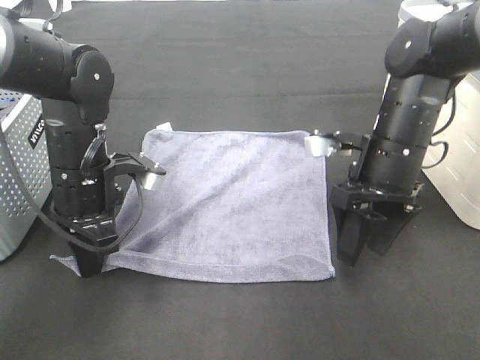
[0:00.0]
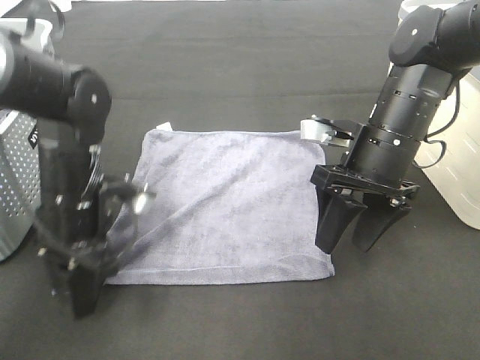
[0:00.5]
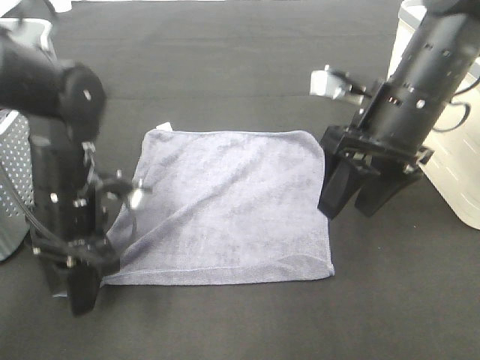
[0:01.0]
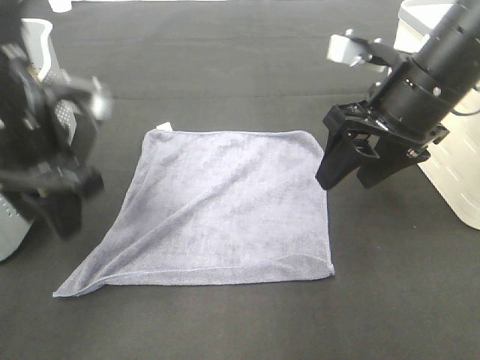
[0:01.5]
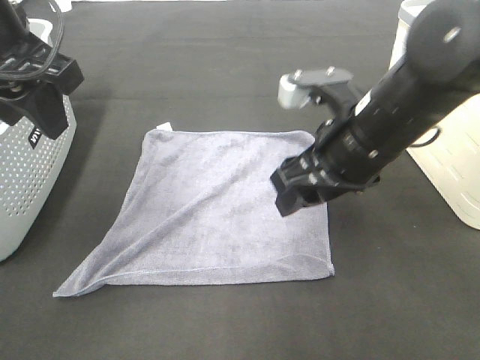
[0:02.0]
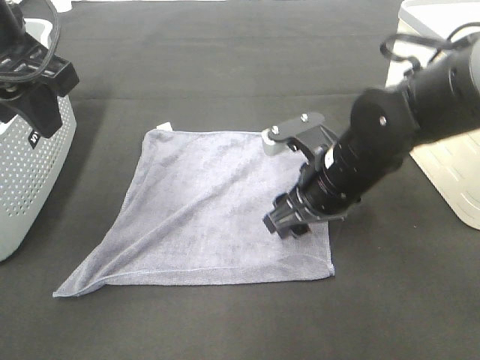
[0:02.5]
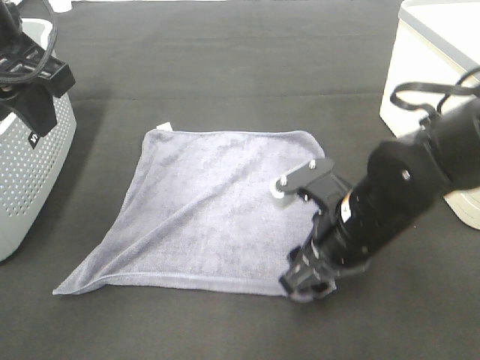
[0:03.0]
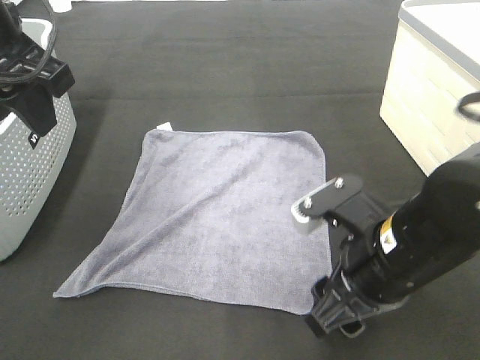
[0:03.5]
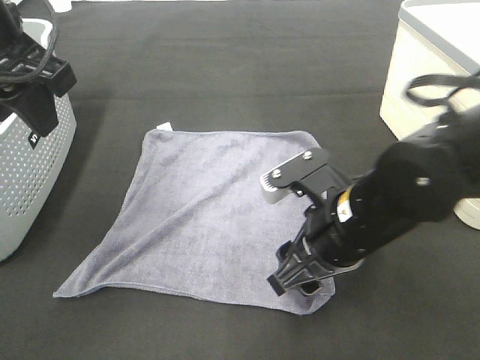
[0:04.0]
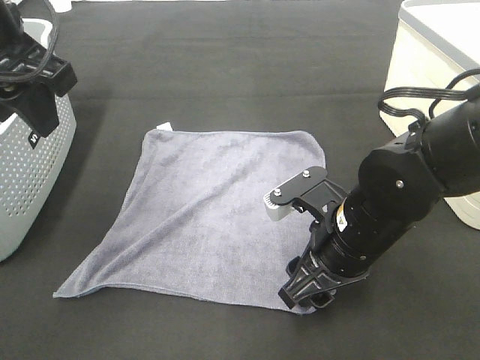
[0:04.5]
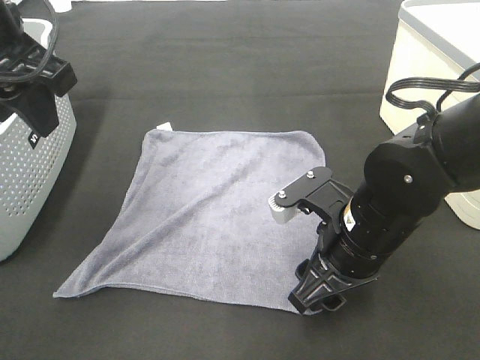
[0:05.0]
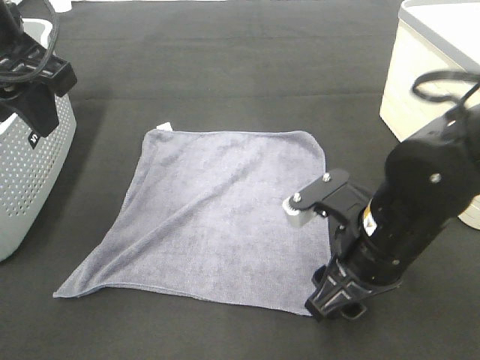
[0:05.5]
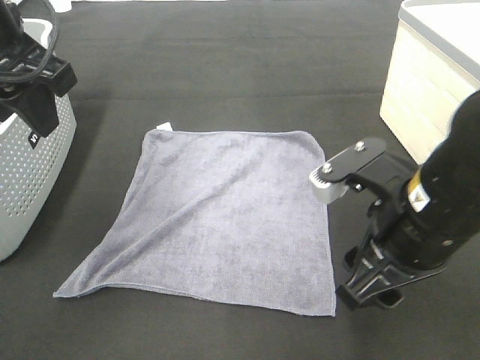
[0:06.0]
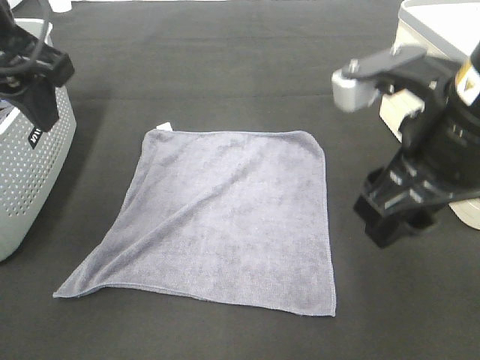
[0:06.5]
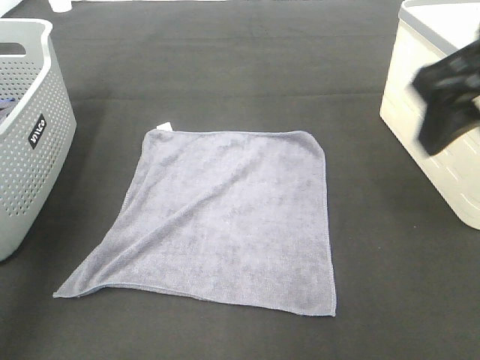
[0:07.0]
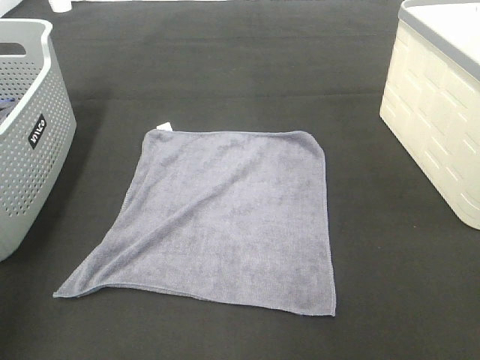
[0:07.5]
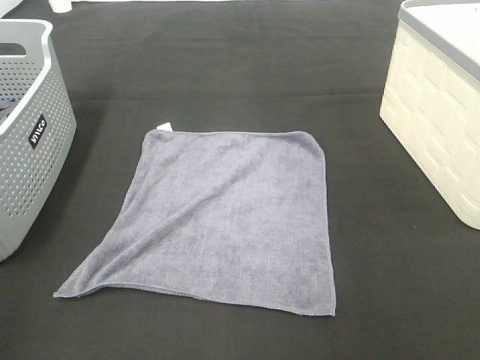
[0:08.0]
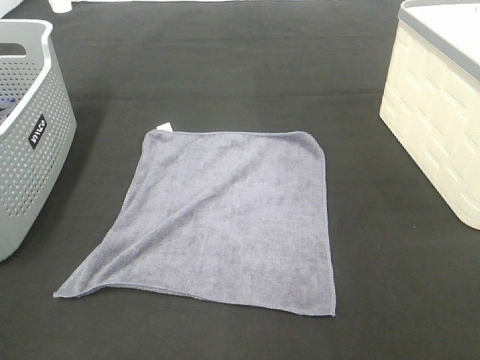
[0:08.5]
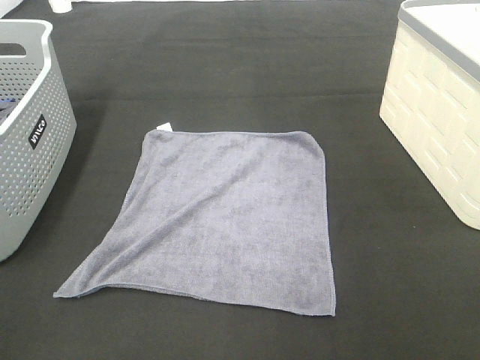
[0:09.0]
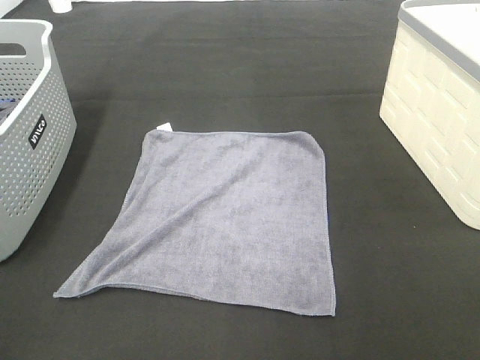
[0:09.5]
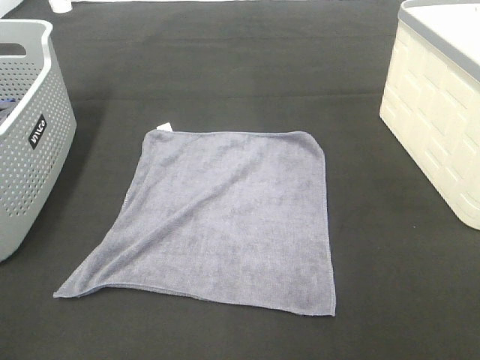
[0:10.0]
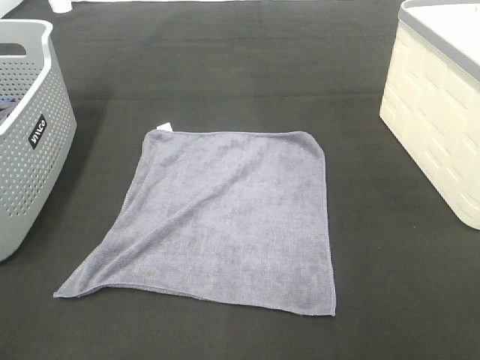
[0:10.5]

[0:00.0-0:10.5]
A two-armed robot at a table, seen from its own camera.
Task of the whole recording: Remove the towel and place it.
0:00.0 to 0:02.0: The right gripper moves to the left, about 5 cm; the left gripper travels upward by some 20 cm, and opens.
0:02.0 to 0:04.0: The right gripper is displaced downward and backward by roughly 10 cm.
0:04.0 to 0:06.5: The right gripper travels upward by about 15 cm.
0:06.5 to 0:08.5: The left gripper goes roughly 30 cm backward and to the left, while the right gripper travels backward and to the right by roughly 25 cm.

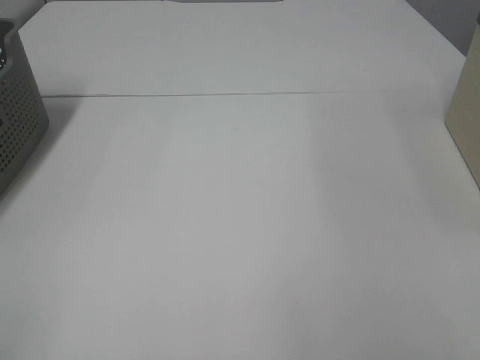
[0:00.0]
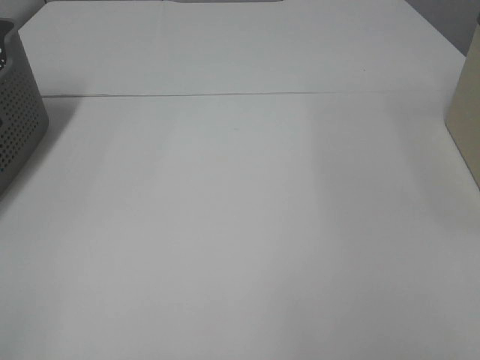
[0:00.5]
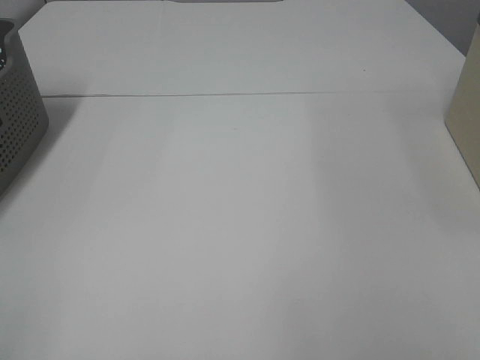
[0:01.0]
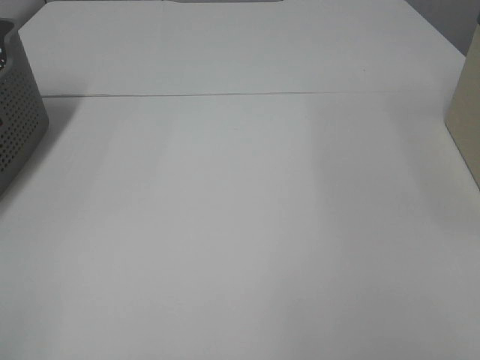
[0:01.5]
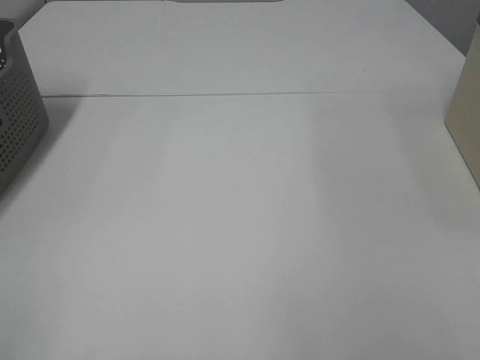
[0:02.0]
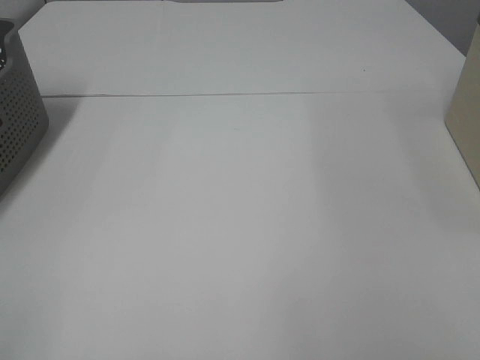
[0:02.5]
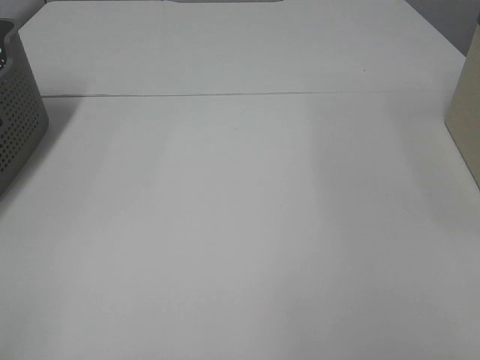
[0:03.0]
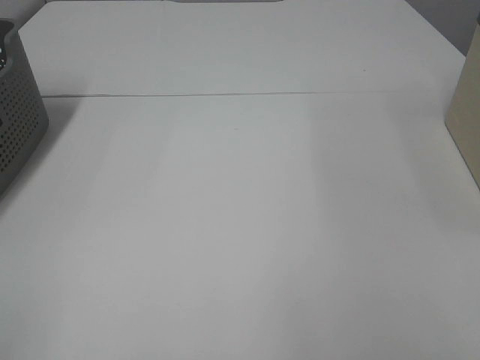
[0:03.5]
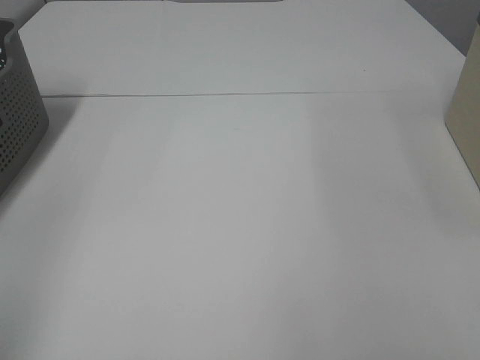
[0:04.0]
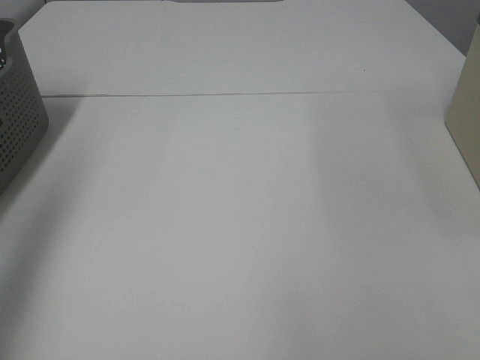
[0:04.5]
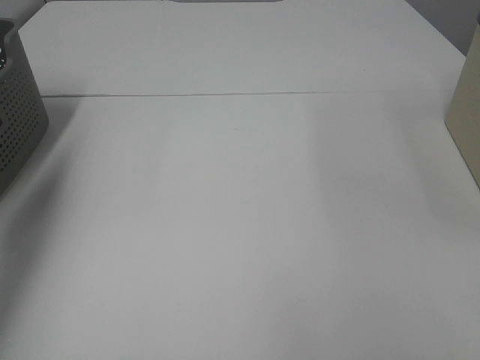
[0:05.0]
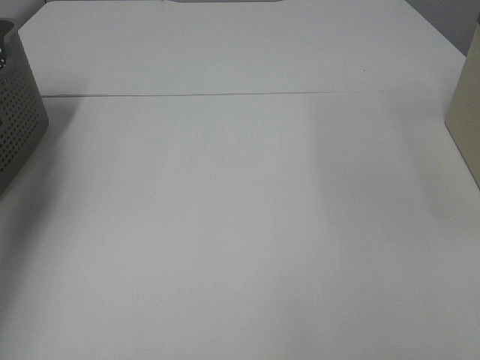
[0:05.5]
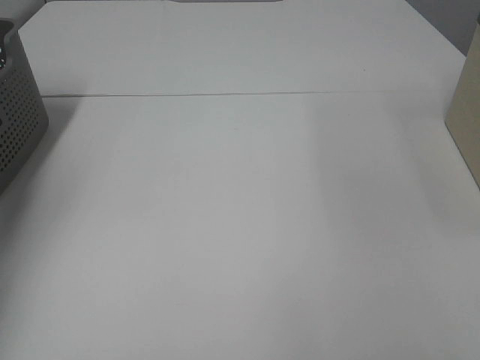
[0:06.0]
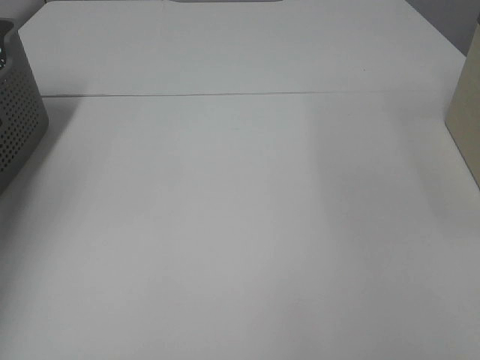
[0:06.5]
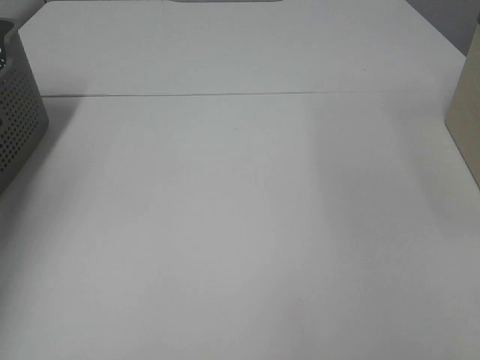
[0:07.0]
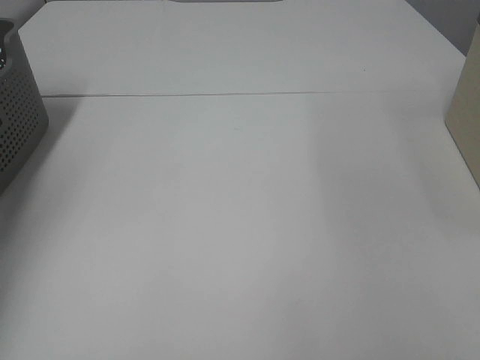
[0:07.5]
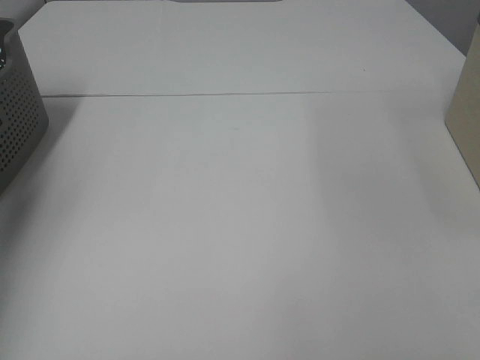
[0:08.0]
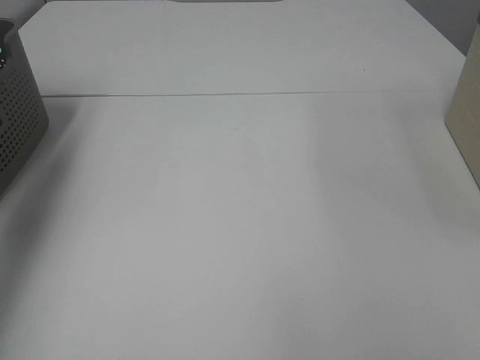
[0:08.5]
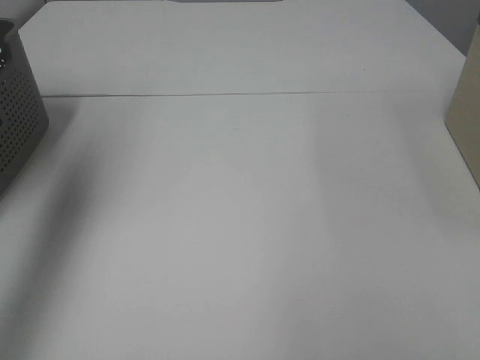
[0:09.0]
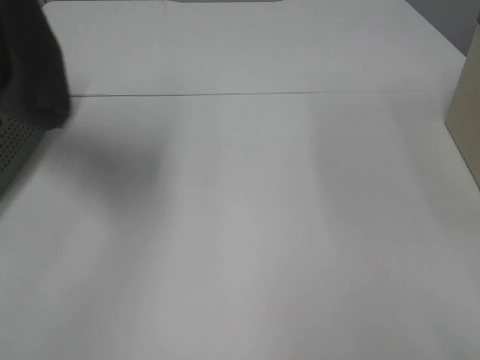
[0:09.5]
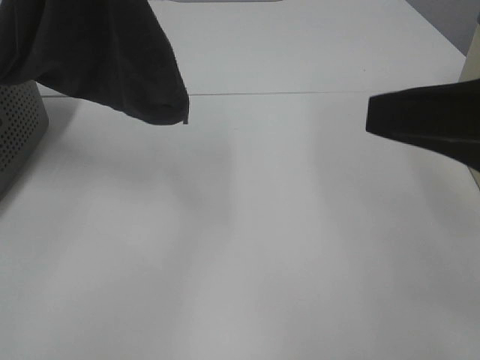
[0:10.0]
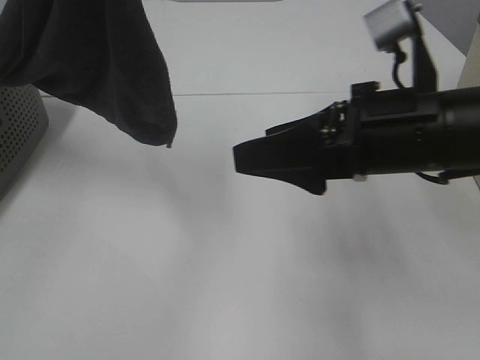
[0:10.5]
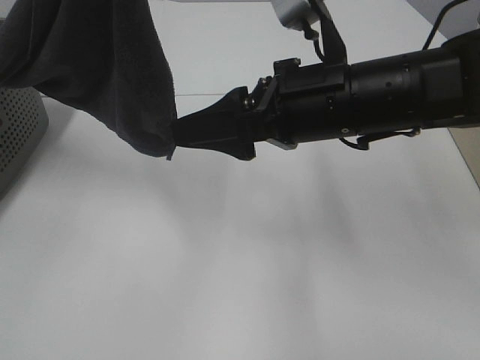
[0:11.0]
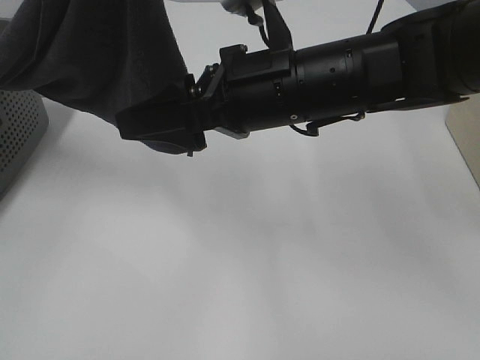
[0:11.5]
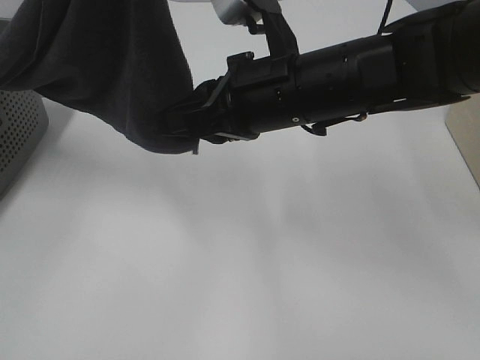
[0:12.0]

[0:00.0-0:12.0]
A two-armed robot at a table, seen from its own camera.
Task of the whole recording: Remove the towel and place it.
0:00.0 to 0:02.0: Both grippers stay put.
0:04.0 to 0:06.0: The left gripper shifts roughly 40 cm forward and downward.
0:08.0 to 0:10.0: The left gripper moves to the right, upward and backward, some 40 cm; the right gripper travels forward and to the left by approximately 15 cm.
0:10.0 to 0:12.0: The right gripper shifts some 20 cm to the left and forward, and closes up.

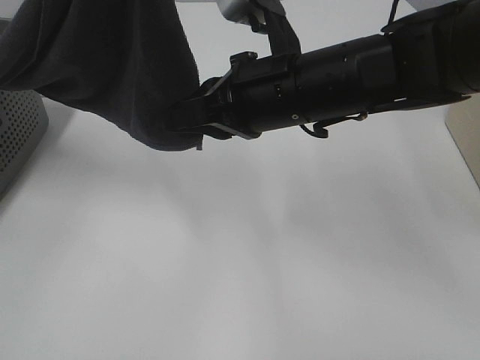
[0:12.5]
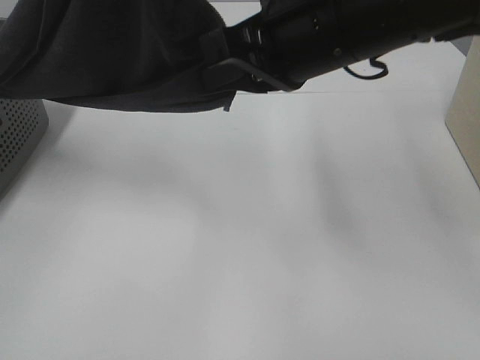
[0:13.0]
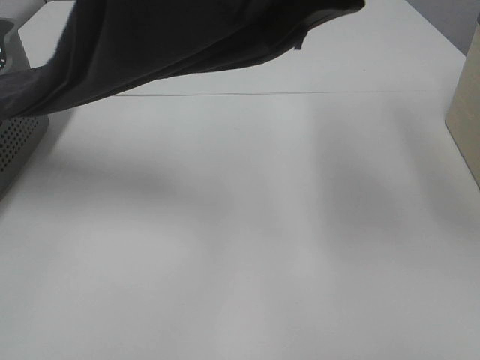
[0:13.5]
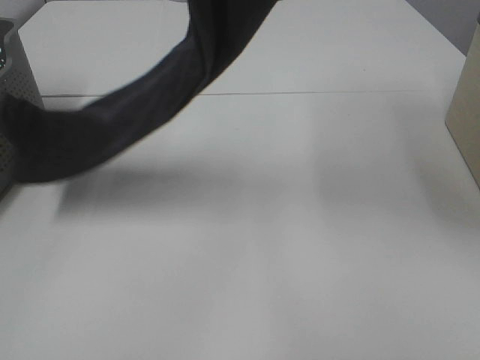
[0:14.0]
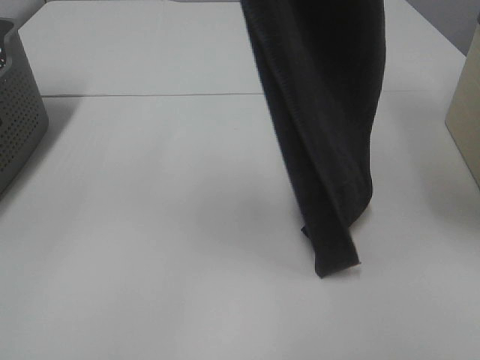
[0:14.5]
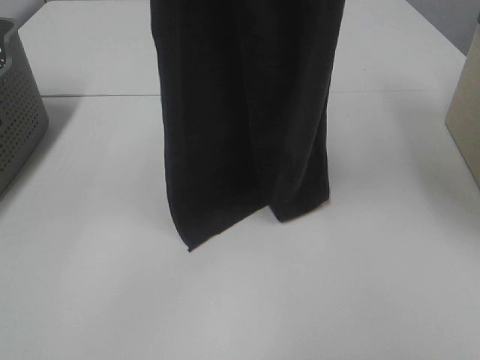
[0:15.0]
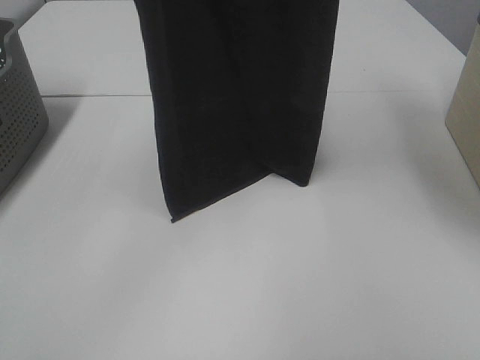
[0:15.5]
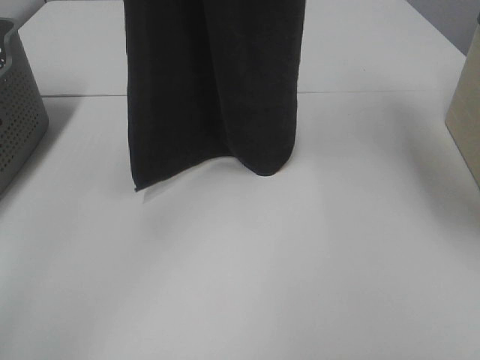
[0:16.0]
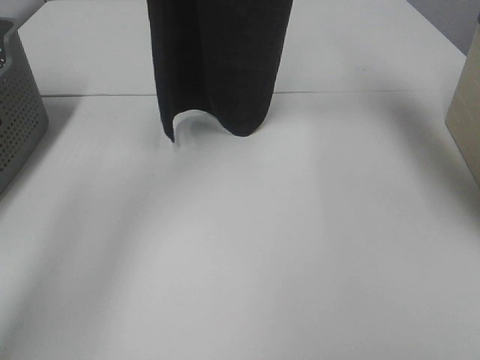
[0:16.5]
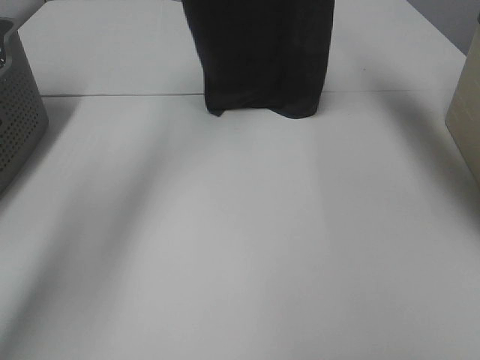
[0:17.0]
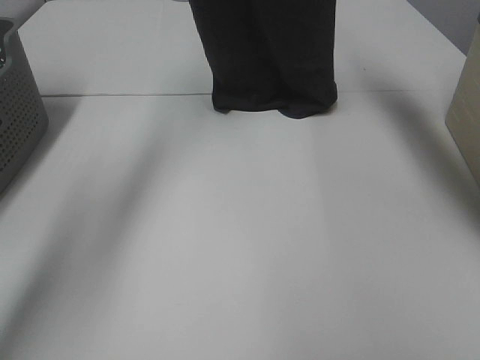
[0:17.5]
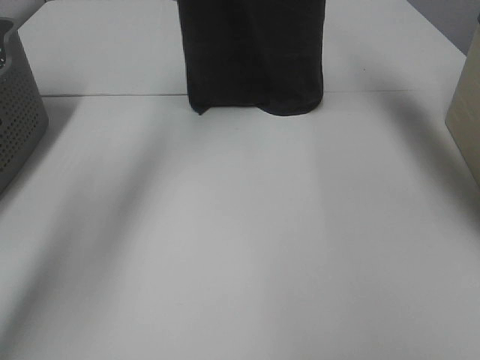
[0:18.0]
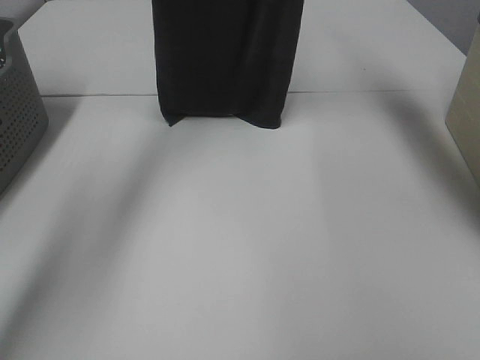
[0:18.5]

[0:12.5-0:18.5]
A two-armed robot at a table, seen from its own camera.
Task of the whole recording: Remove the towel and place it.
0:12.5 to 0:14.5: The right gripper moves upward, some 30 cm.
0:14.5 to 0:16.5: Both grippers travel together forward, roughly 20 cm.
